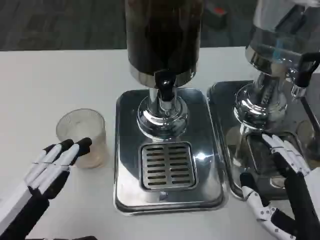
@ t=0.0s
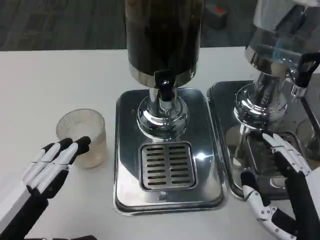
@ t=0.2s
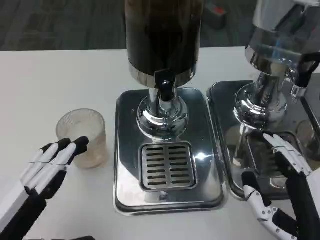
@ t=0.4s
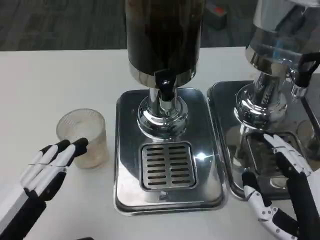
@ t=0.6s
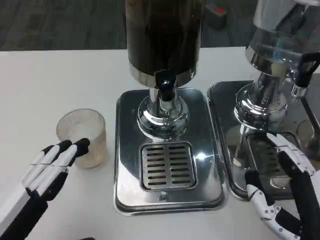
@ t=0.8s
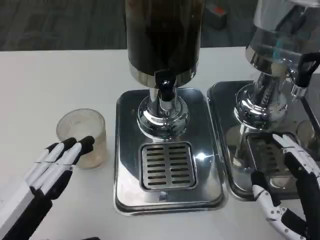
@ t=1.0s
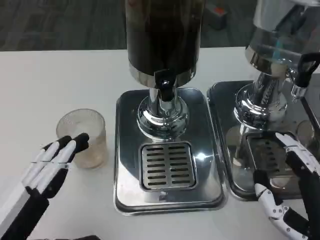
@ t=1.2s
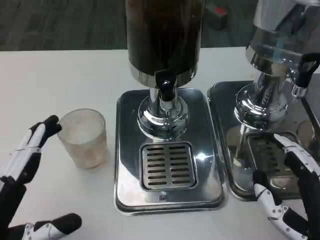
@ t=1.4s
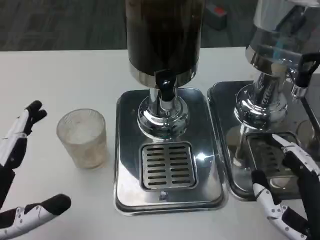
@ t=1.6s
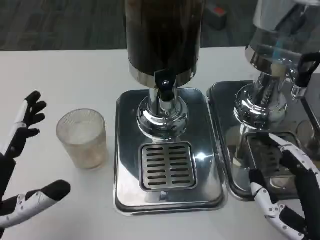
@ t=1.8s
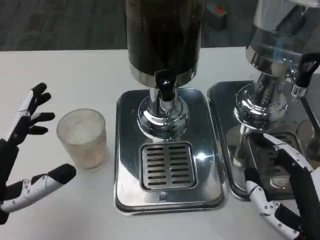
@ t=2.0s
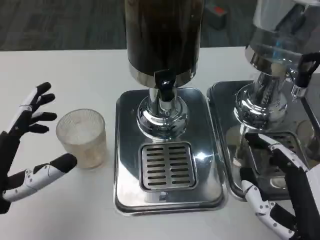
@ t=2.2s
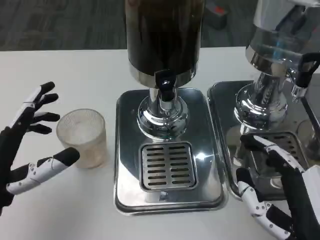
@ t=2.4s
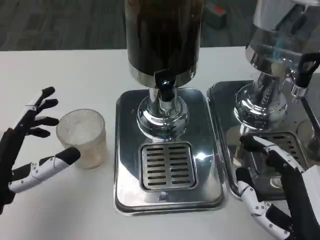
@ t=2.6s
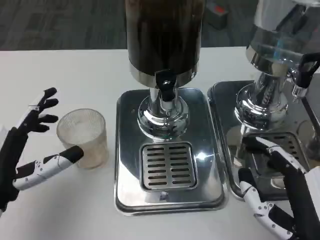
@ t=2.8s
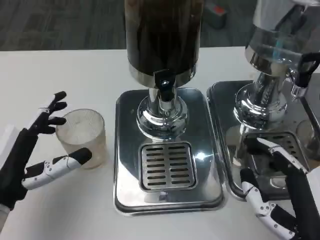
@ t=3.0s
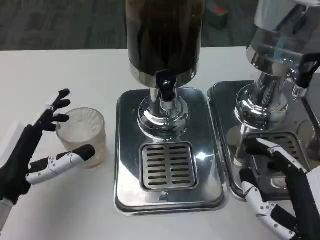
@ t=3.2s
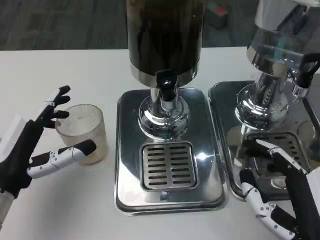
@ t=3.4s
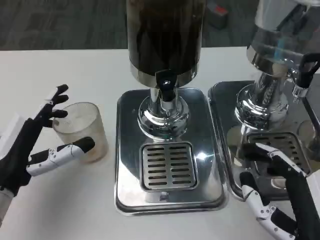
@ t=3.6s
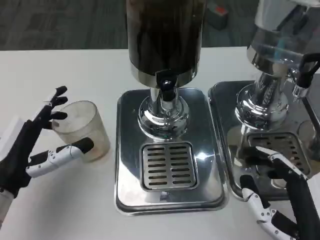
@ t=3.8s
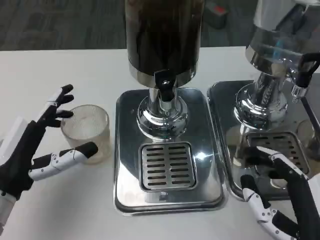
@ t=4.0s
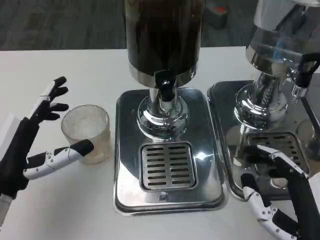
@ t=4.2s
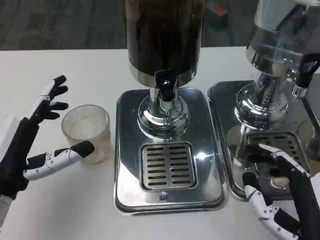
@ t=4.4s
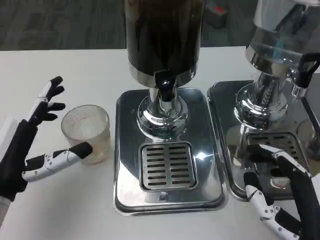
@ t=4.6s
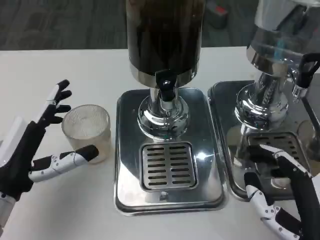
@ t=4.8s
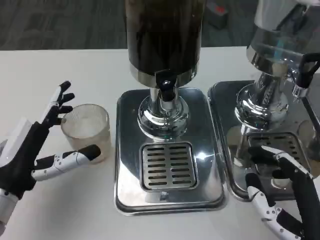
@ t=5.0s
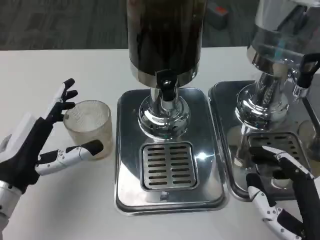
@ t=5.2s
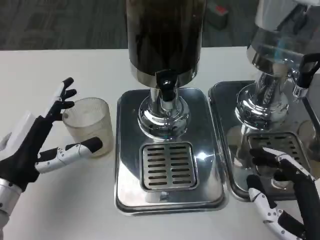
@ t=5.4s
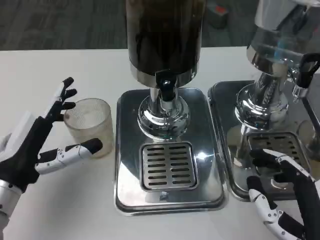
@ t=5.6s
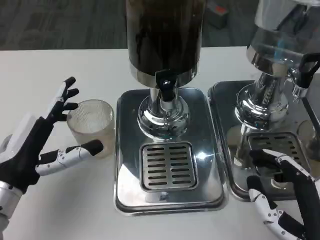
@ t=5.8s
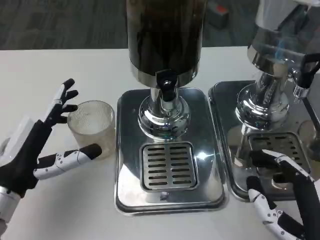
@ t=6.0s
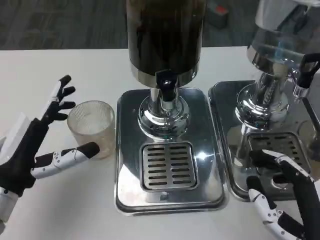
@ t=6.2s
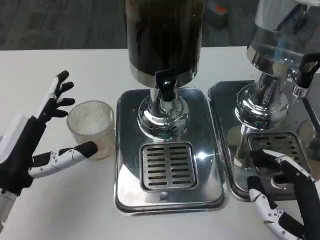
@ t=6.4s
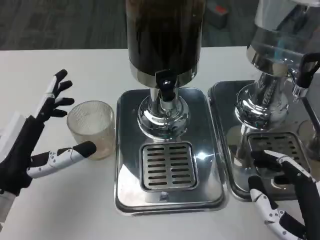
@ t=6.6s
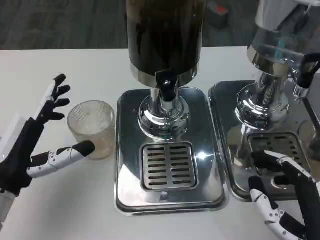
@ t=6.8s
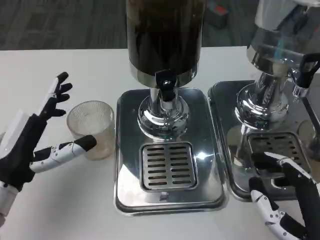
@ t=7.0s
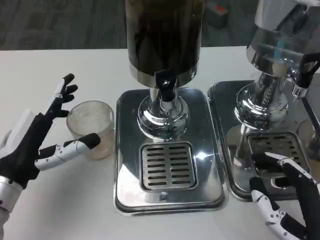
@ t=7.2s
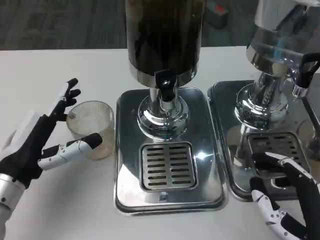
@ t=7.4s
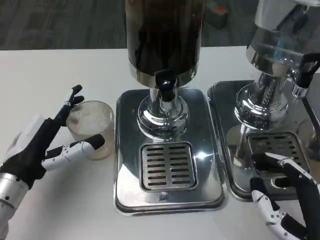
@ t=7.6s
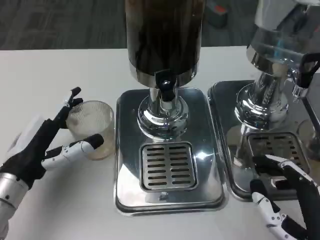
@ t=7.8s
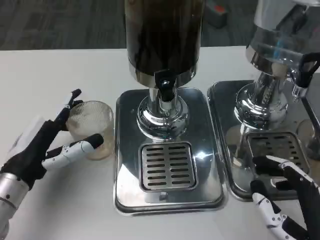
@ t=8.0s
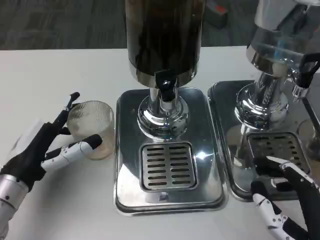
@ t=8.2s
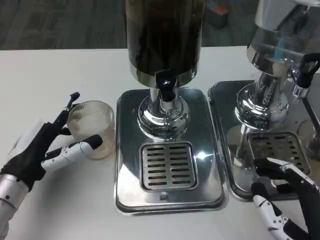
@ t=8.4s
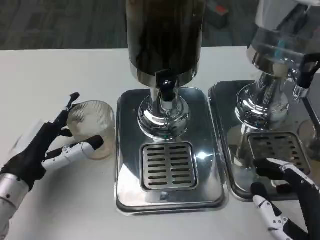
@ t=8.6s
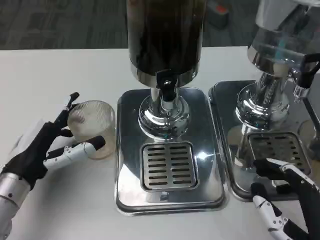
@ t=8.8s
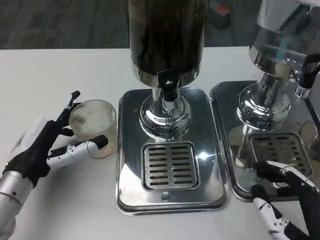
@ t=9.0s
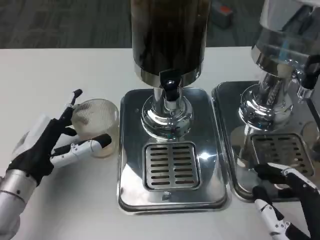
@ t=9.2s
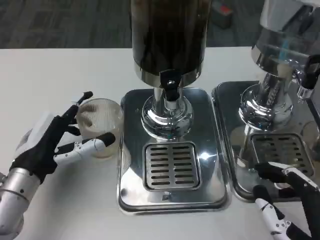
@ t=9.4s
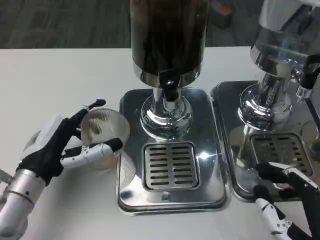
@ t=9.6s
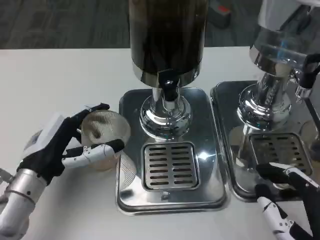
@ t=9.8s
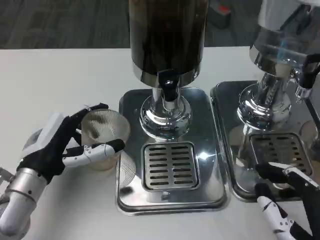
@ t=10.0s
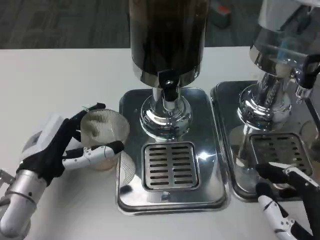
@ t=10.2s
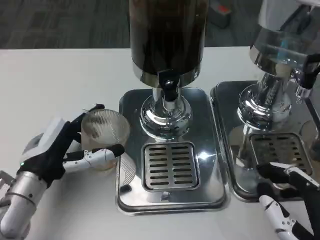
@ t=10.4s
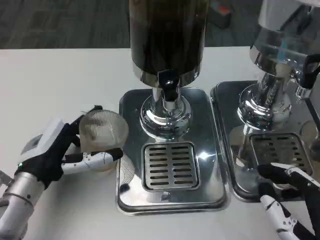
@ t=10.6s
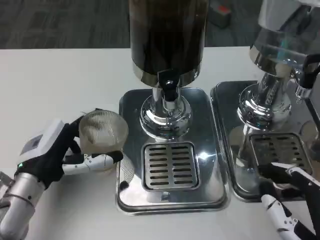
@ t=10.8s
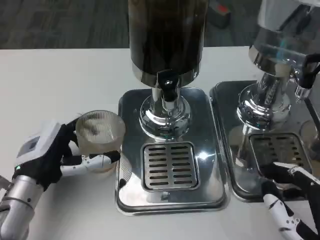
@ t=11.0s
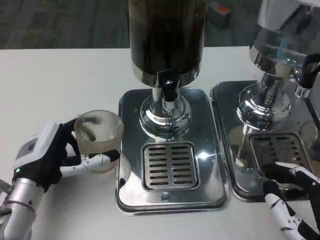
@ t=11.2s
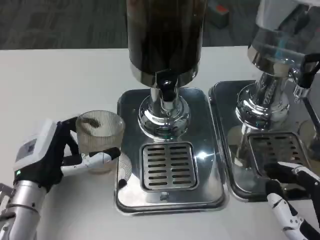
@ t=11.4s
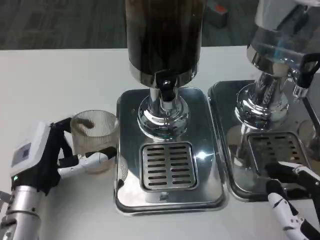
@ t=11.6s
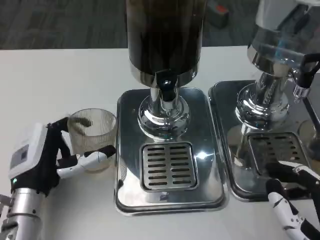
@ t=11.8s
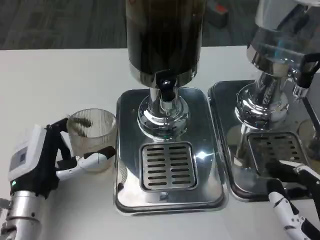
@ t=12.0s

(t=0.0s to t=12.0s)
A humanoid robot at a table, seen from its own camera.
Task of the whole recording: Grasp the cup under the faucet to collect the drink, then remove the cup.
t=1.6s - t=3.0s: The left hand is displaced forward by roughly 5 cm.
t=3.0s - t=9.0s: The hands make only small movements.
t=9.0s - t=10.4s: The hands stay close to where they were, moving slightly.

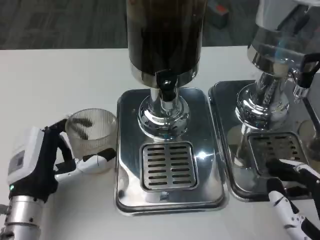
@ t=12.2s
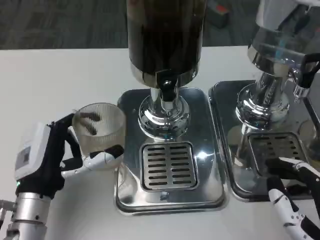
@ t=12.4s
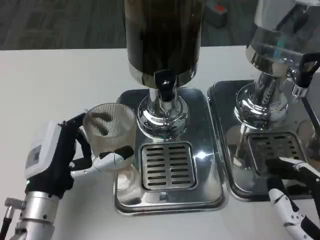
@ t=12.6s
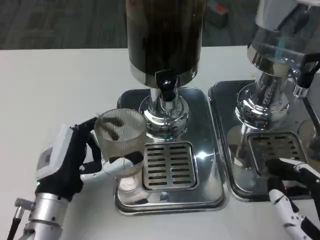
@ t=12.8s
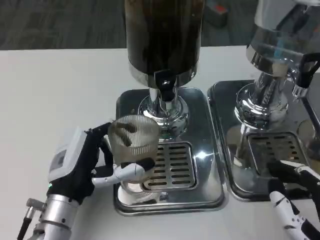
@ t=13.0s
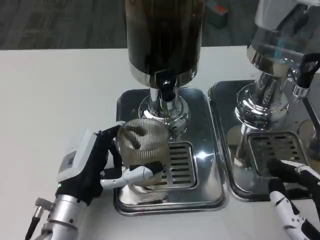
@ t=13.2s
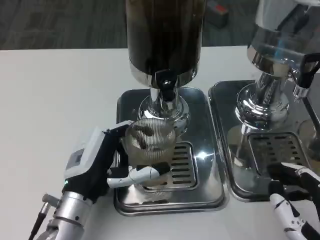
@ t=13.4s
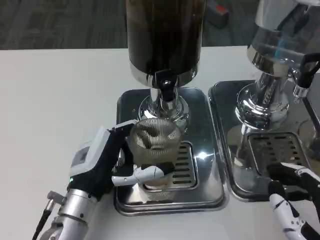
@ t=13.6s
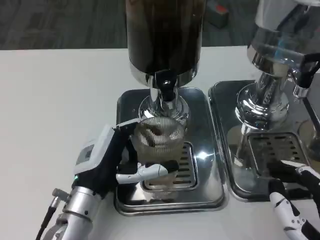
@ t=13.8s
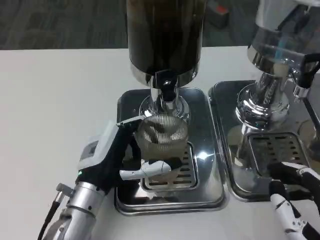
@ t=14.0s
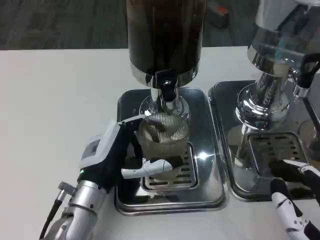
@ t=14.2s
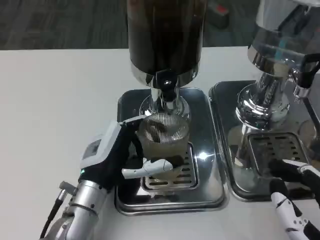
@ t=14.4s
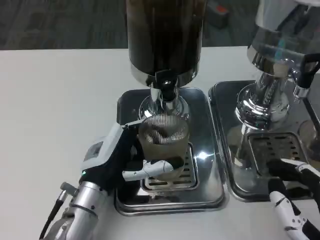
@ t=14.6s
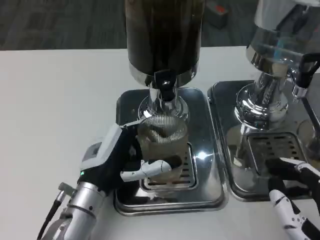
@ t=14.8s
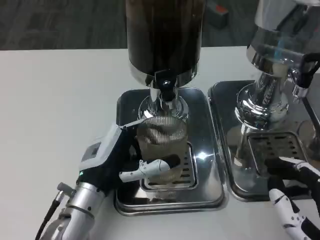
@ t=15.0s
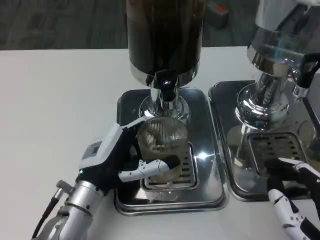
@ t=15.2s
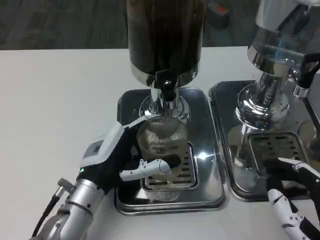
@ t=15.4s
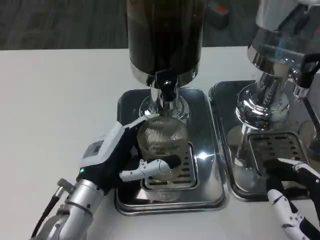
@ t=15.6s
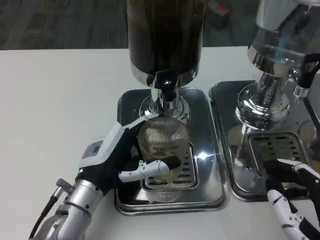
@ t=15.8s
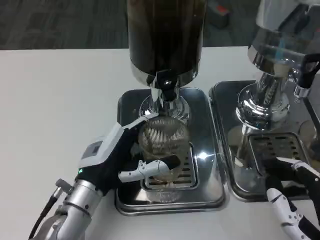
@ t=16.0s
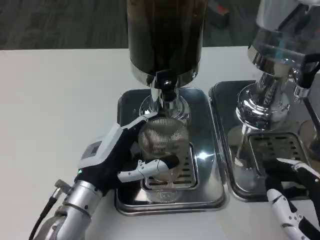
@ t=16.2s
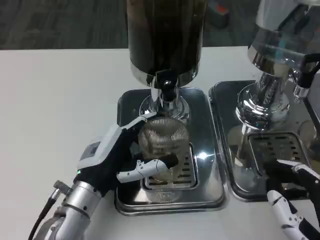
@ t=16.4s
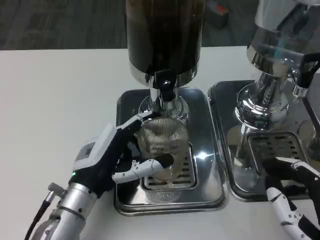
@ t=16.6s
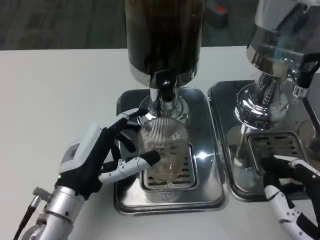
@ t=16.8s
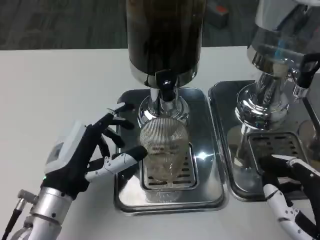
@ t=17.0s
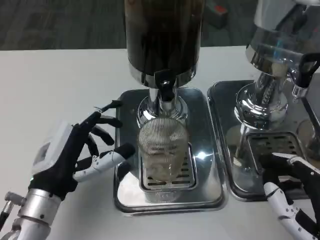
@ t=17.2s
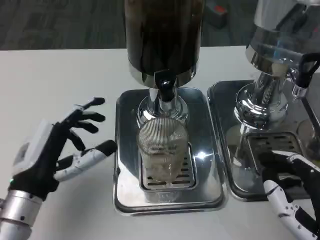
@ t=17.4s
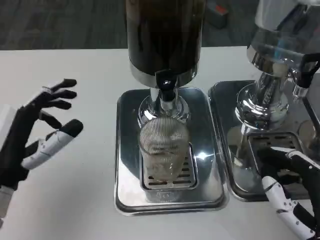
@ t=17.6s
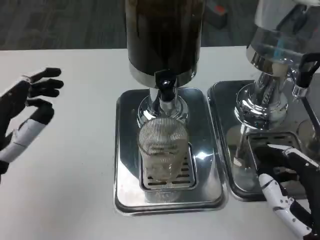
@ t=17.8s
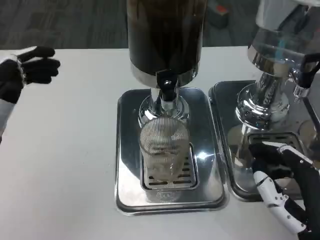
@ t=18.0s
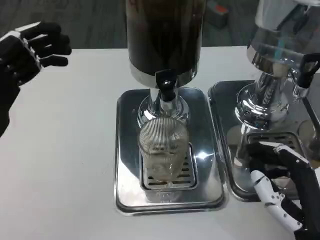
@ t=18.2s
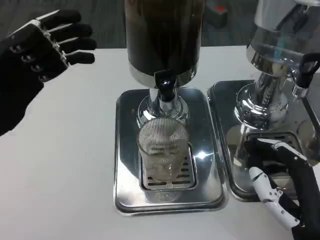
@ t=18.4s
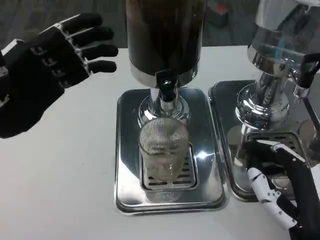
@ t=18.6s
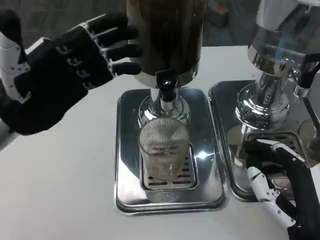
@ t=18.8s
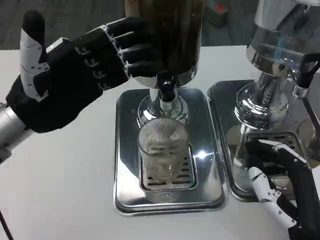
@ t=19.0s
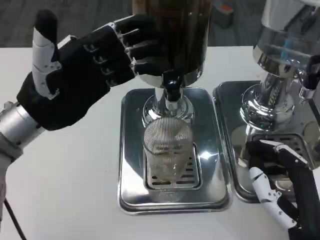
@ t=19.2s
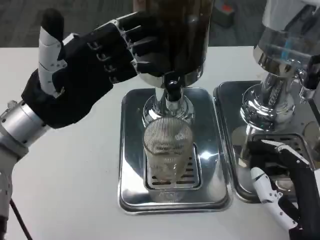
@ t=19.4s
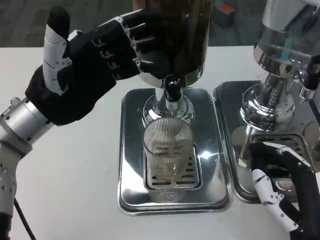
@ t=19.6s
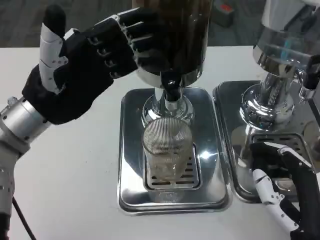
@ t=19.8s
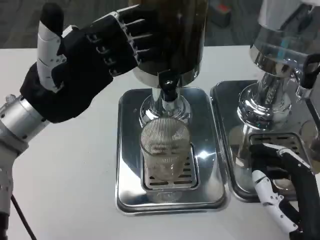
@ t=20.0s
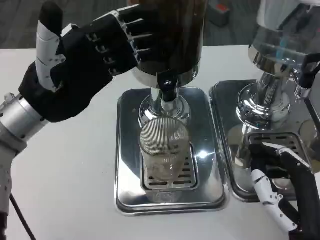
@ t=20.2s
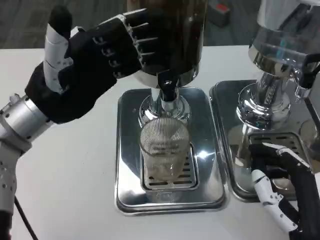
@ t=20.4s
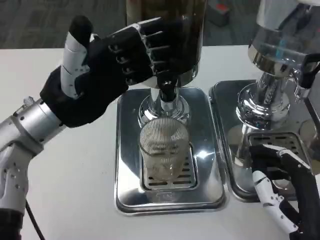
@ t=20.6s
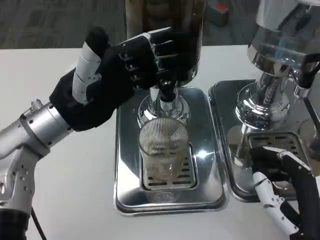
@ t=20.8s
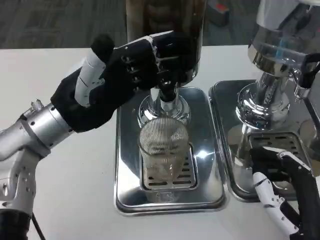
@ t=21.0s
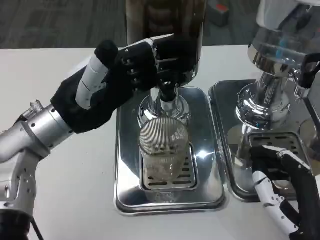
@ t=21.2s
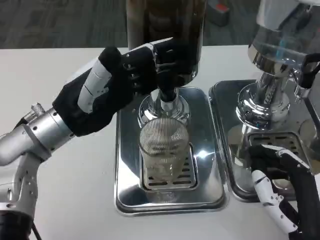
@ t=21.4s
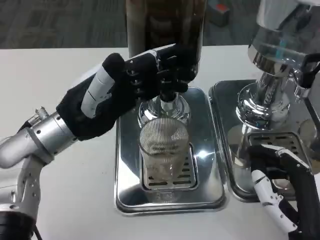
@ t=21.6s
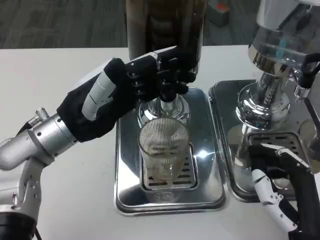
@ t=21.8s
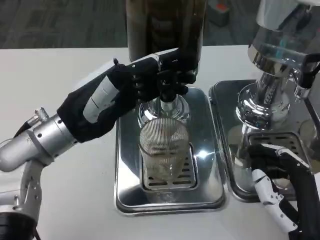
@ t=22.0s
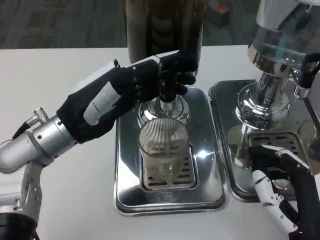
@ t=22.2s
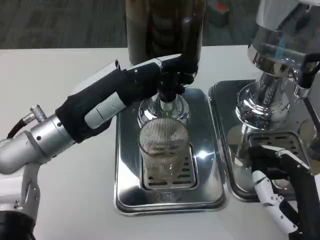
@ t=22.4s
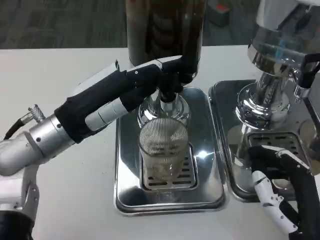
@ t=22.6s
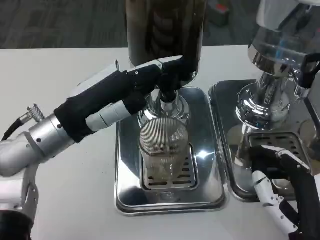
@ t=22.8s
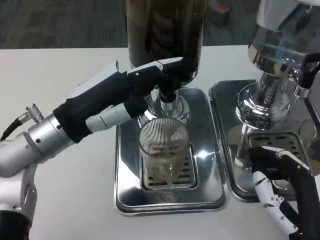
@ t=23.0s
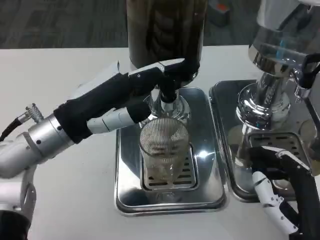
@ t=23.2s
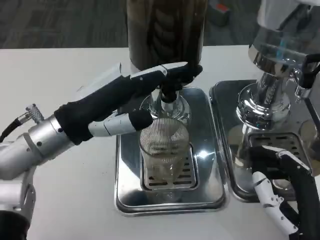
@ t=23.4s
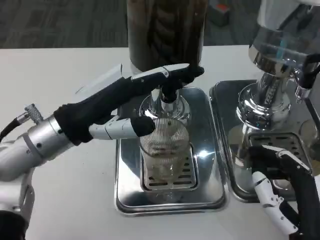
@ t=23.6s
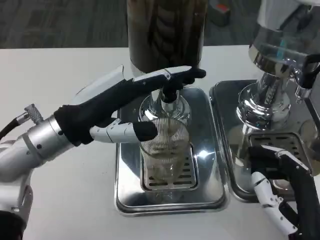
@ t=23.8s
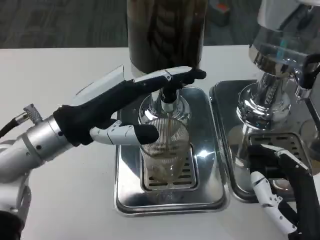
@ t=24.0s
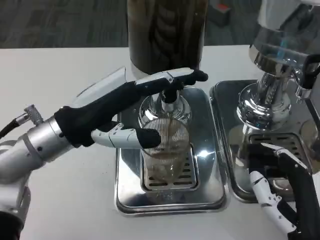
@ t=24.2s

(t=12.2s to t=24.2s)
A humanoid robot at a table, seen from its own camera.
Task of the whole recording: Grasp the cup under the faucet to collect the drink, then remove the cup.
t=12.2s - t=13.8s: The left hand moves to the right, approximately 5 cm.
t=13.8s - t=15.2s: The hands make only small movements.
t=15.2s - t=16.6s: Both hands stay put.
t=16.6s - t=18.2s: The left hand moves to the left and upward, about 15 cm.
t=18.2s - t=19.8s: The left hand is displaced to the right and forward by roughly 10 cm.
t=22.6s - t=24.2s: The hands stay close to where they were, moving slightly.
